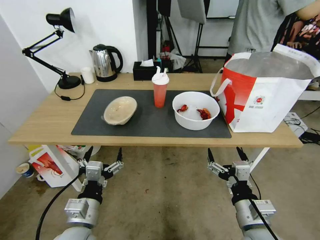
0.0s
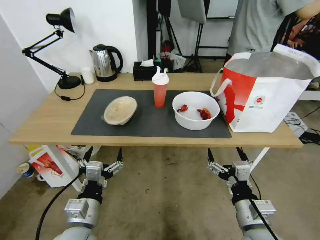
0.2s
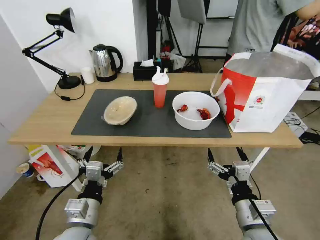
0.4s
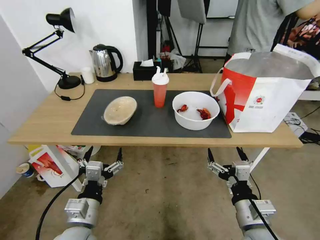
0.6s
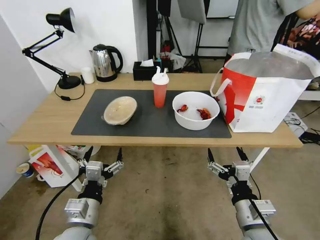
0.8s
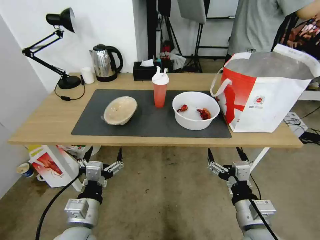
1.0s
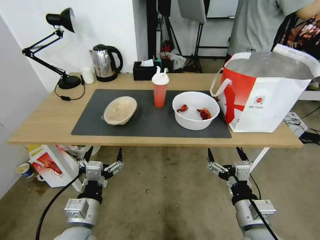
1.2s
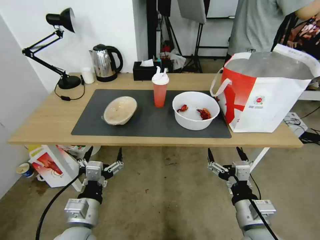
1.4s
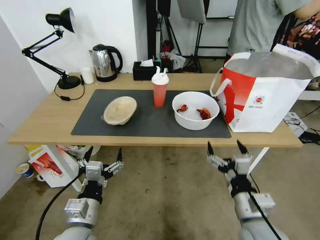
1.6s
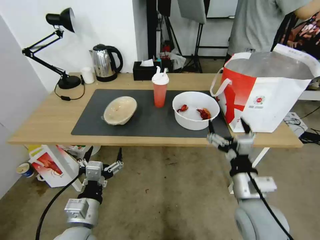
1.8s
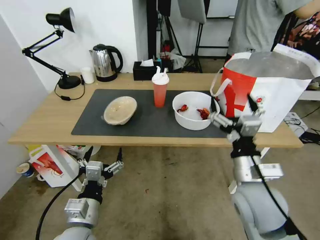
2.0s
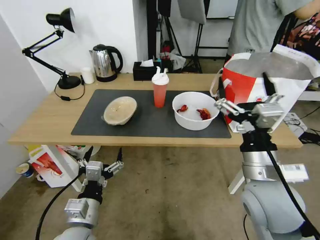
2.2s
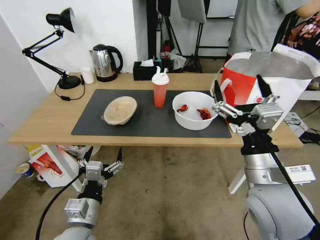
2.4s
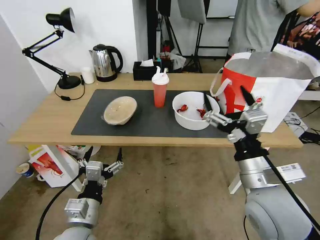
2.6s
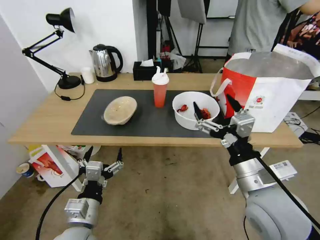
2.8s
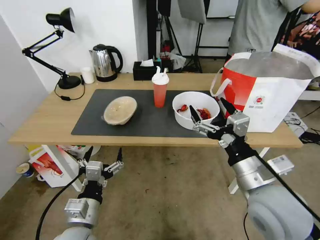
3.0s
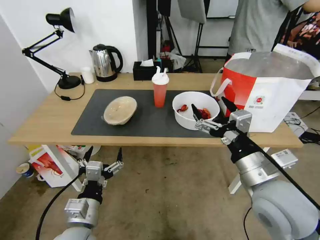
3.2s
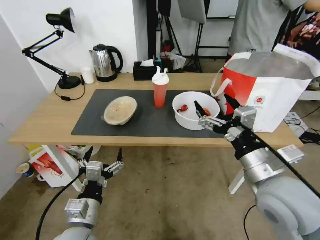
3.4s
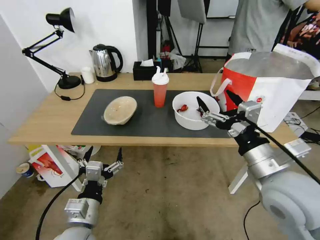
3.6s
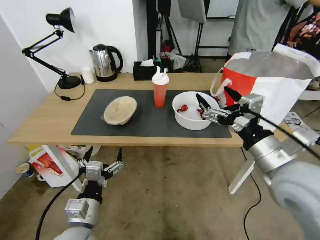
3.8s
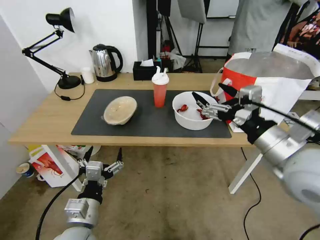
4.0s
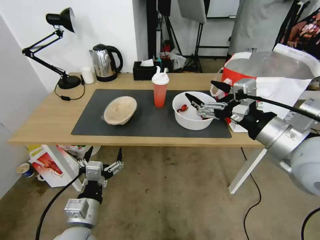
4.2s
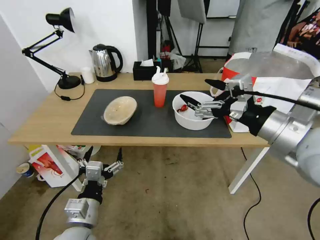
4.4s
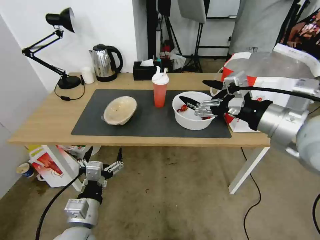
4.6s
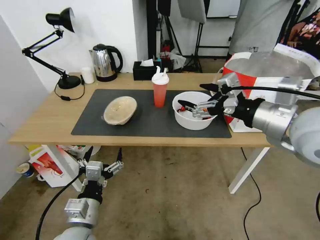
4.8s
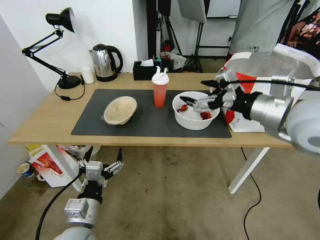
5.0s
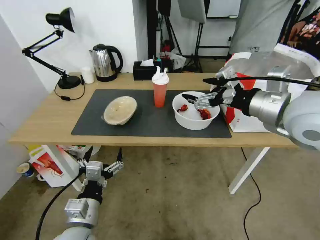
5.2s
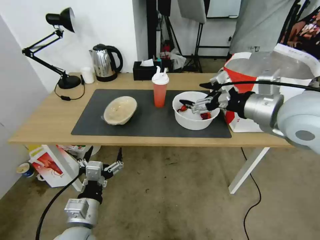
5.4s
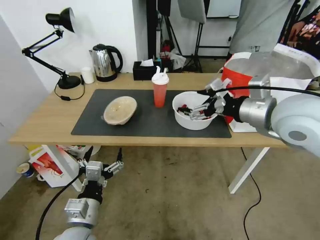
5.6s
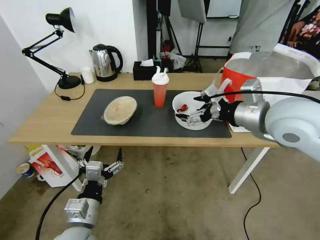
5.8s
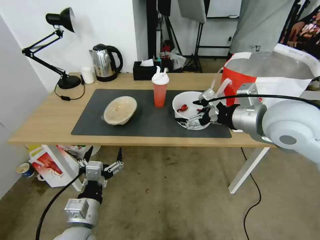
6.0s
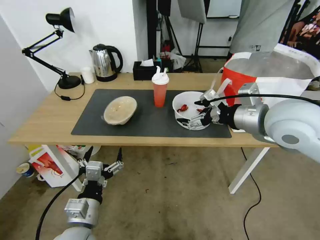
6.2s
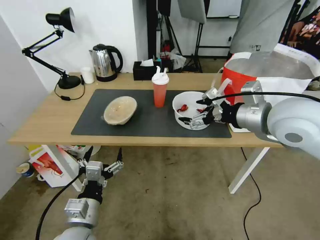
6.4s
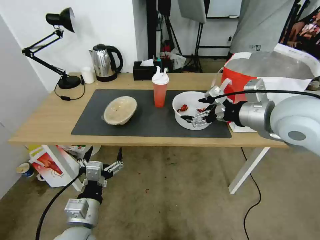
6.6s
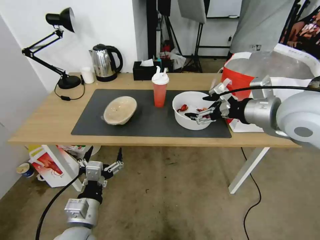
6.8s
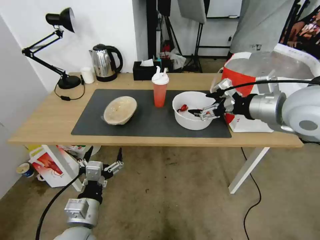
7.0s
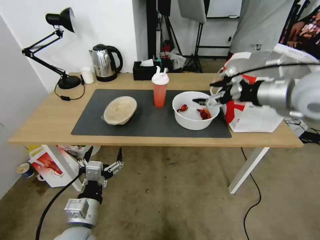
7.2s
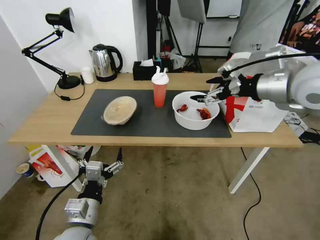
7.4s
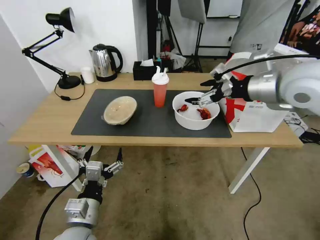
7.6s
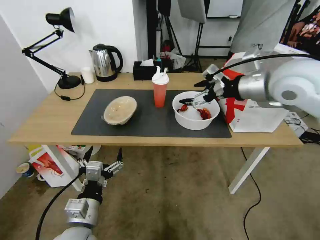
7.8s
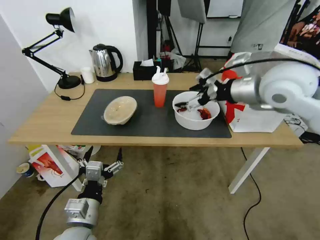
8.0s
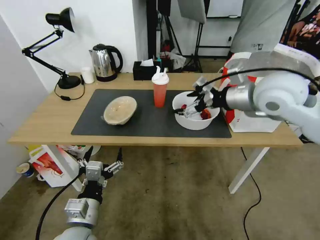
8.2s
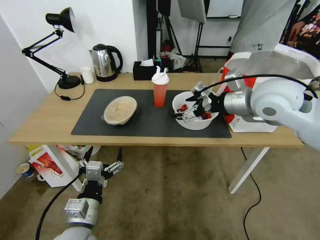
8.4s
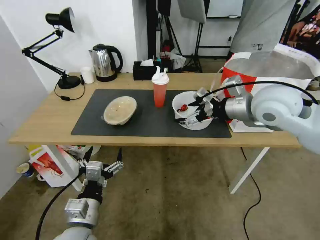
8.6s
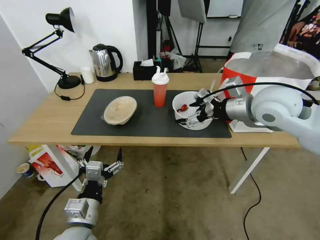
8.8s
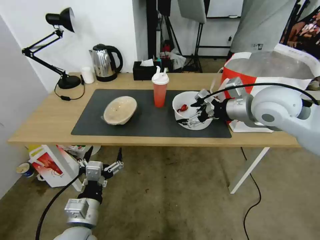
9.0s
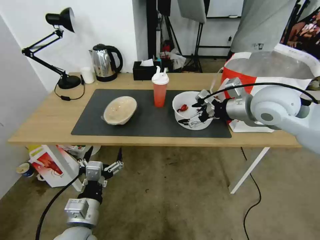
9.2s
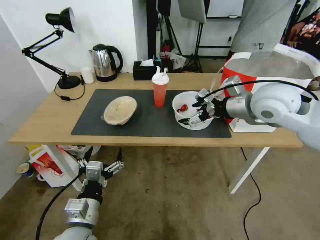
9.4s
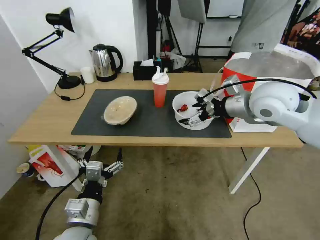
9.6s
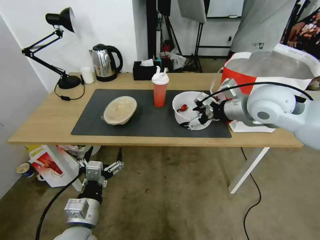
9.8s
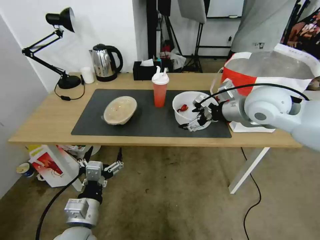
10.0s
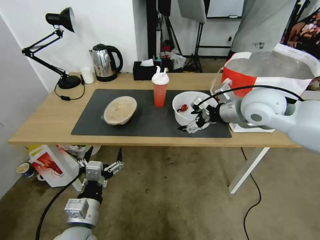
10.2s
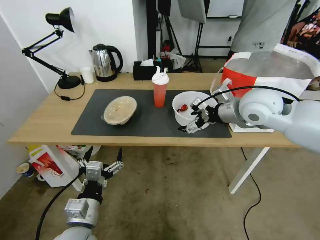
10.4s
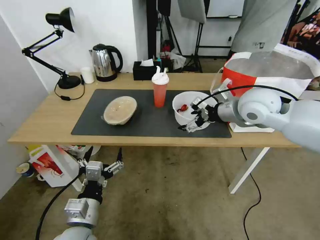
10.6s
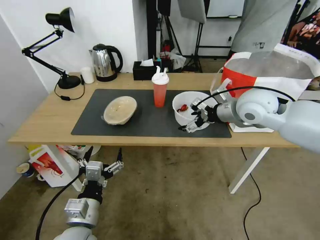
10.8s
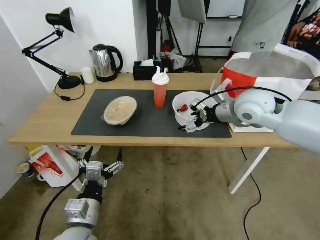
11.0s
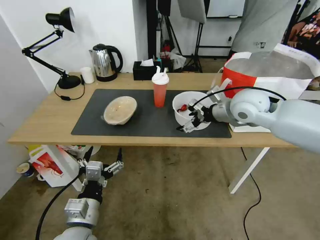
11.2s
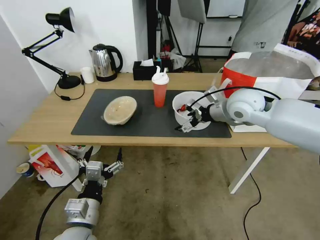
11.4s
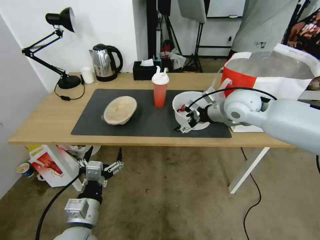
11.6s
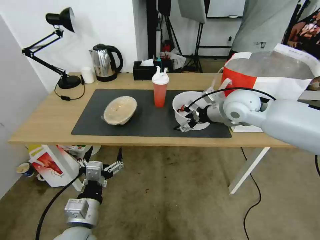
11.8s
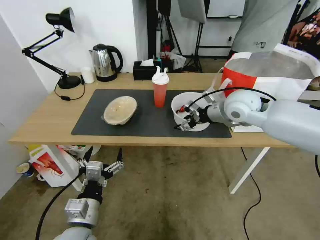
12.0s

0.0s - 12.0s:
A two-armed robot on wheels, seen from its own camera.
Task of the whole recording: Pick up the trash from the table and place it into the takeout bag.
1.6s - 3.0s: The right gripper moves upward, some 10 cm.
3.0s - 4.4s: The right gripper goes approximately 15 cm upward.
4.4s - 6.0s: The right gripper travels forward by about 10 cm.
6.0s - 7.6s: The right gripper shifts about 10 cm forward and upward.
7.6s - 9.0s: The right gripper goes roughly 5 cm downward.
9.0s - 10.4s: The grippers move only a little.
10.4s - 12.0s: The right gripper changes place by approximately 5 cm, and closes its fingers.

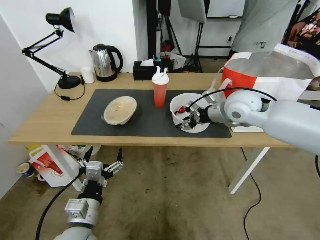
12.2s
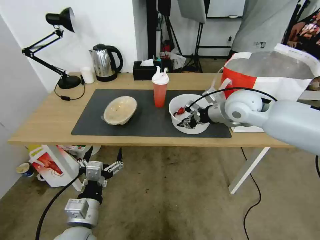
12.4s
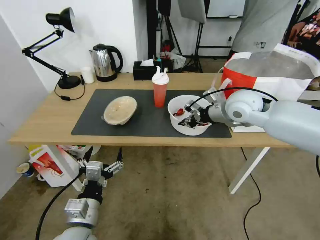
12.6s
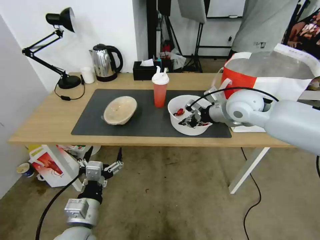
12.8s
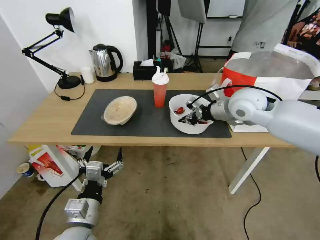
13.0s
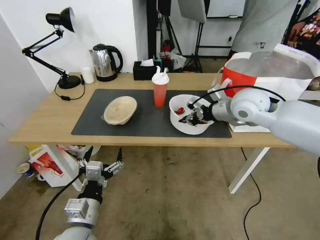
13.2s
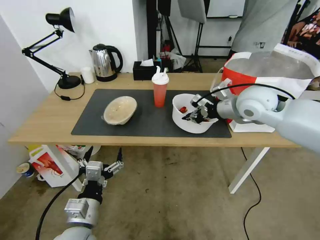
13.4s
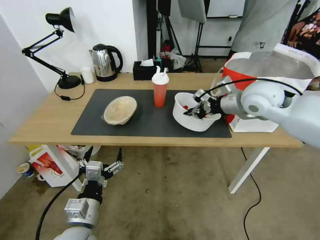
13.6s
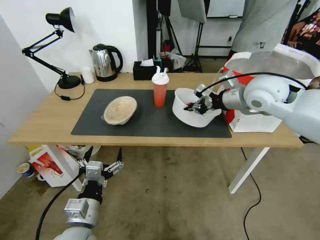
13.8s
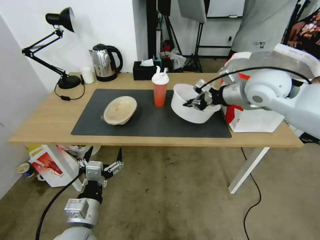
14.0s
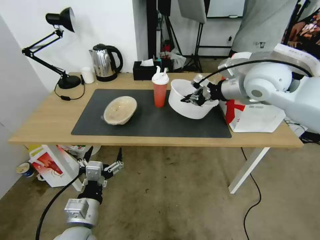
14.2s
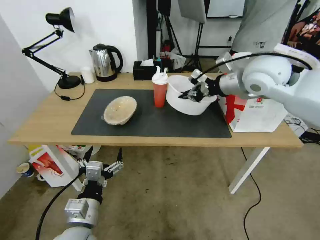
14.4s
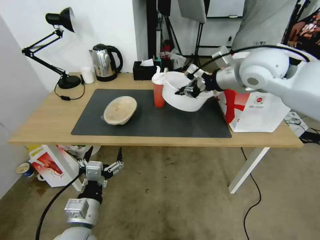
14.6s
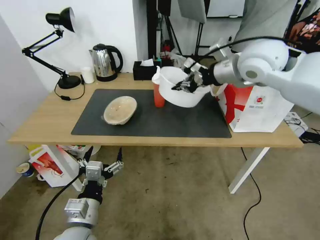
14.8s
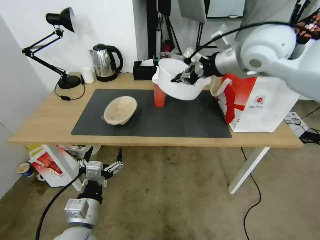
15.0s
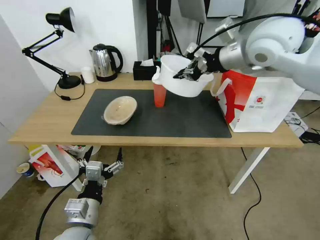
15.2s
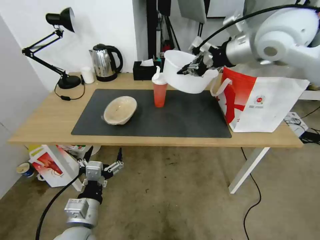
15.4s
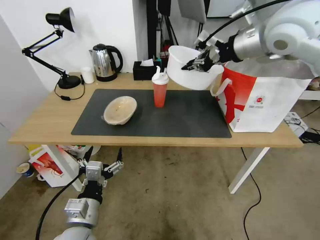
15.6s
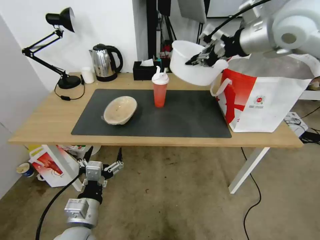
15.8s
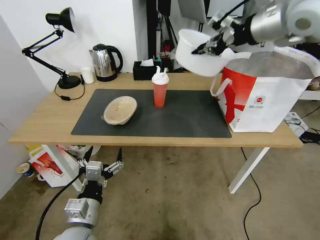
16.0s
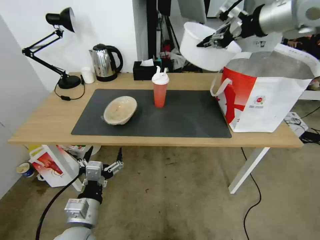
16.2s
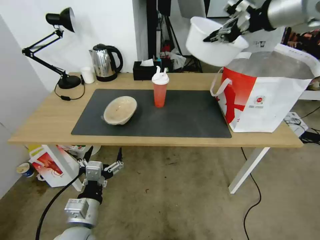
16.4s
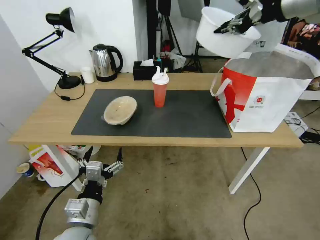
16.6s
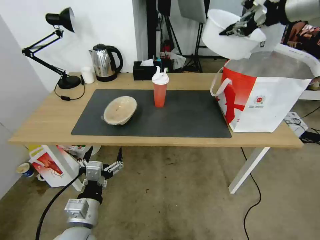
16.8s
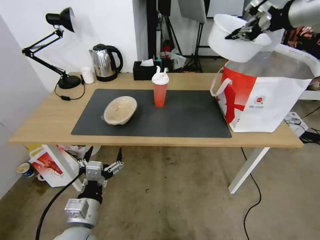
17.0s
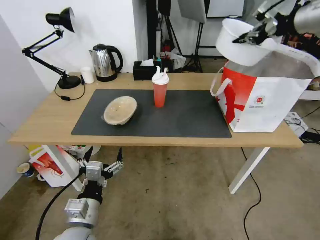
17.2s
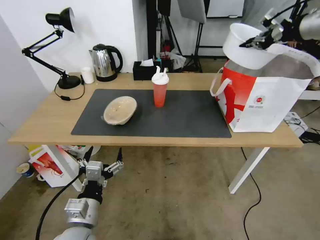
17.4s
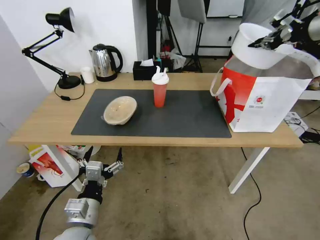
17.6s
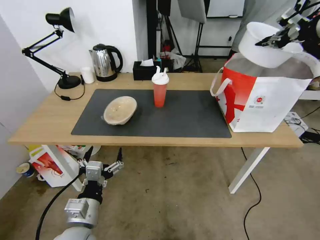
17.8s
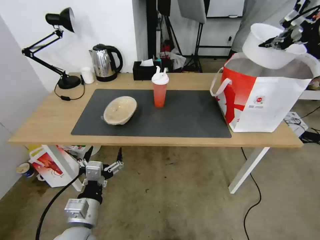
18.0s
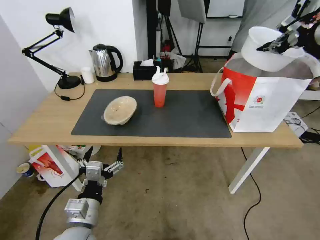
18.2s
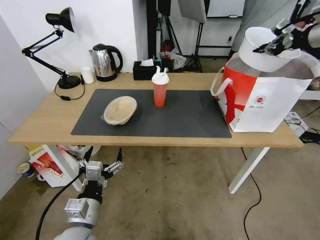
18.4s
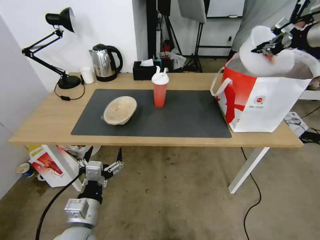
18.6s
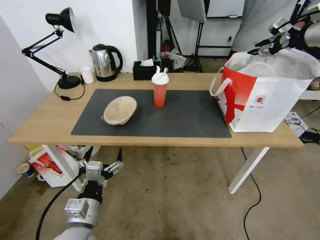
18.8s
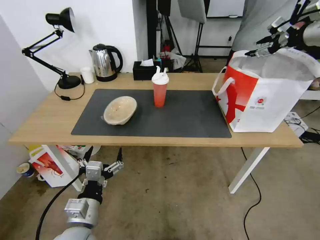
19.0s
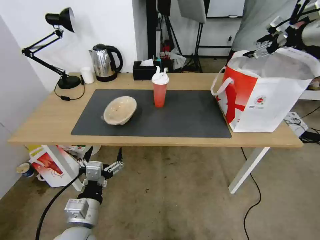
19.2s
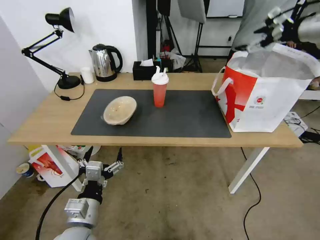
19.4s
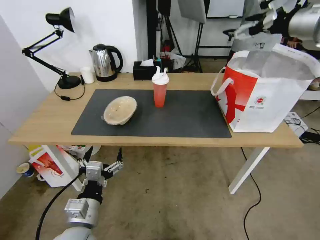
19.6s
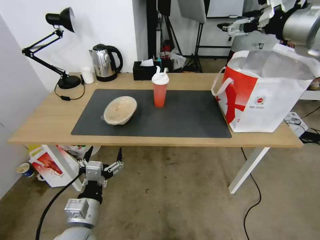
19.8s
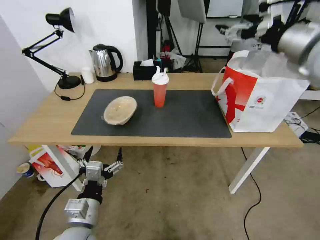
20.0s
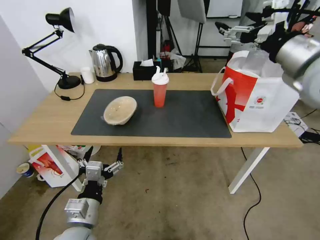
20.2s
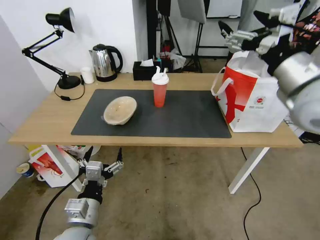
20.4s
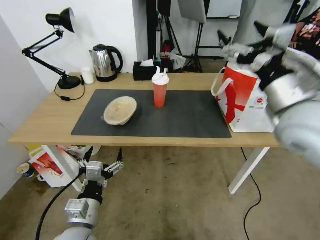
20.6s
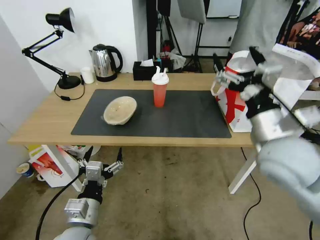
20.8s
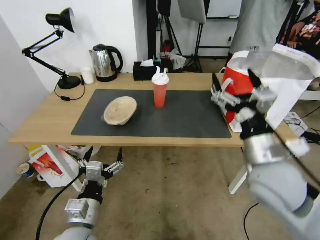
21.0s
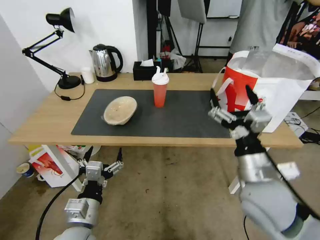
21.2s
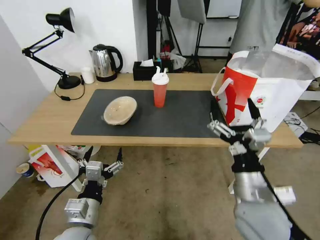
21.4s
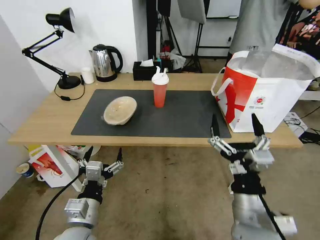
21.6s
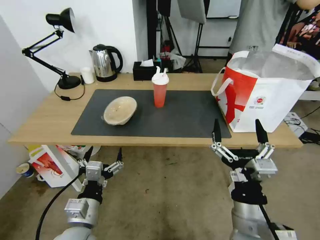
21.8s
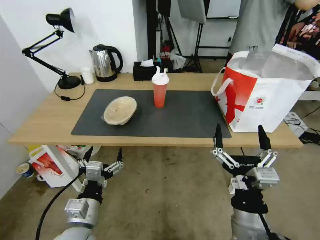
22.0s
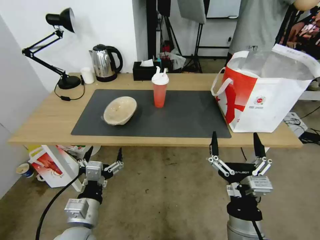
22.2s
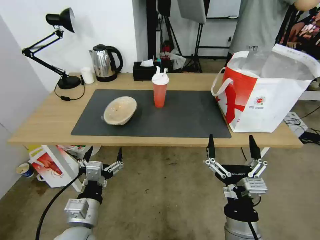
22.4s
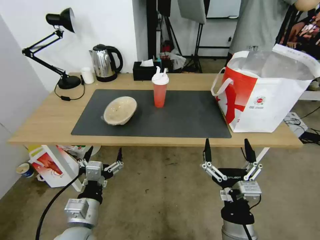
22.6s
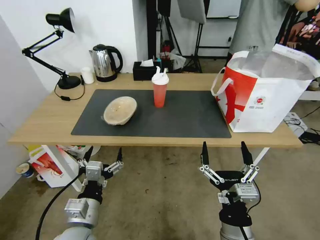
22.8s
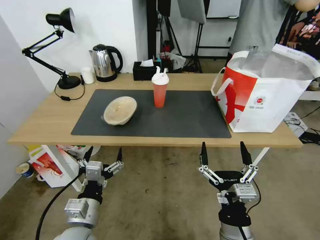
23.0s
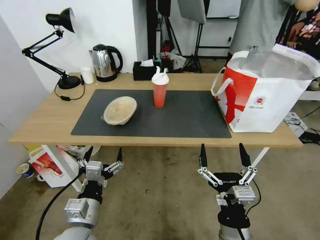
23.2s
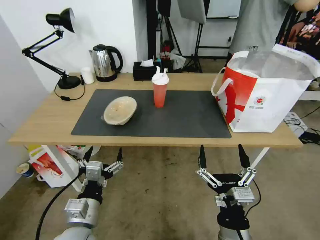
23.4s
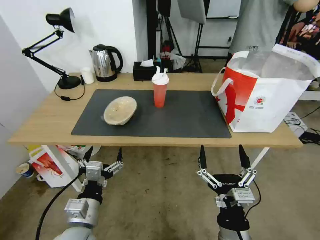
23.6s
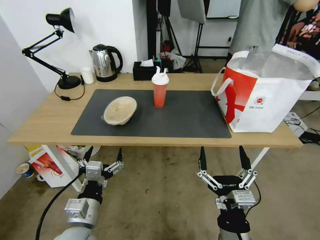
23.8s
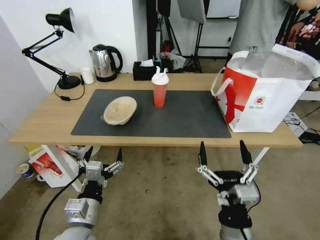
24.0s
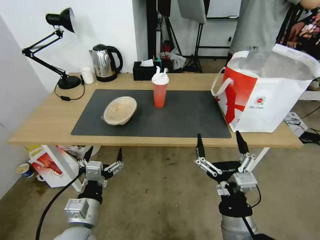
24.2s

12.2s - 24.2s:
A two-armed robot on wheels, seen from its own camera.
Task of the whole recording: Pick up the trash from the table and place it into the takeout bag.
12.2s - 13.8s: The right gripper is displaced upward by some 5 cm, and closes up.
13.8s - 15.2s: The right gripper shifts about 15 cm upward.
15.2s - 16.6s: The right gripper heads upward and to the right, covering about 15 cm.
16.6s - 18.2s: The right gripper heads to the right and downward, covering some 15 cm.
18.2s - 19.8s: The right gripper goes some 15 cm to the left and backward, and opens up.
19.8s - 21.2s: The right gripper is displaced downward and backward by roughly 35 cm.
21.2s - 22.6s: The right gripper goes approximately 20 cm backward, downward and to the left.
22.6s - 24.2s: There are only small adjustments of the grippers.
